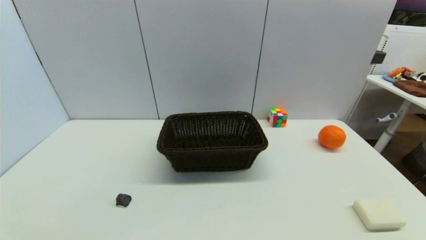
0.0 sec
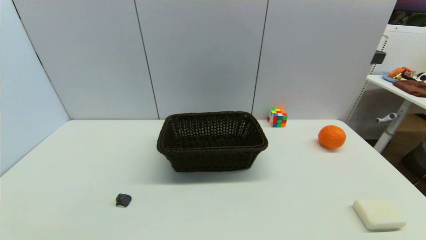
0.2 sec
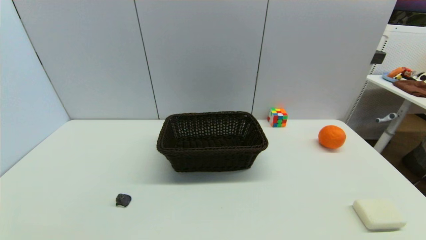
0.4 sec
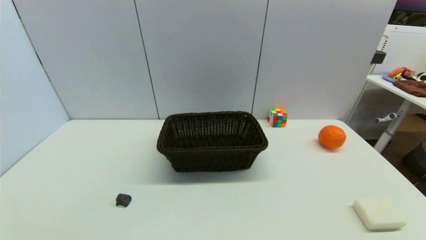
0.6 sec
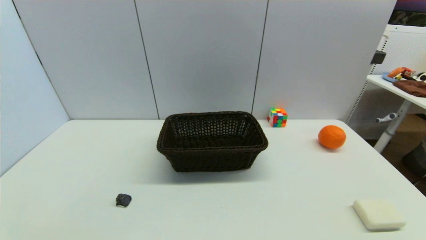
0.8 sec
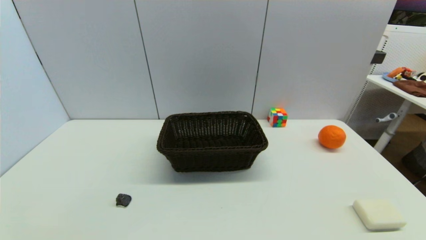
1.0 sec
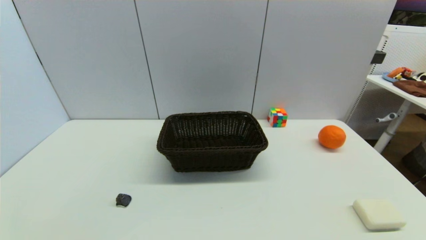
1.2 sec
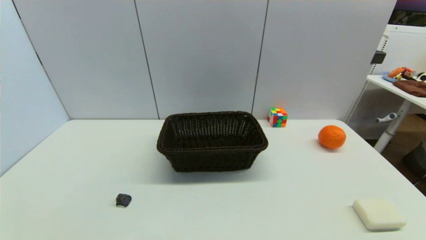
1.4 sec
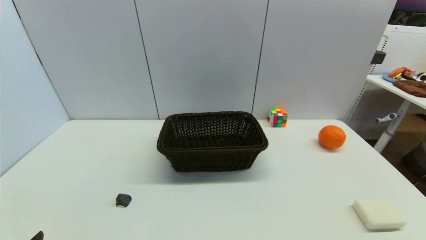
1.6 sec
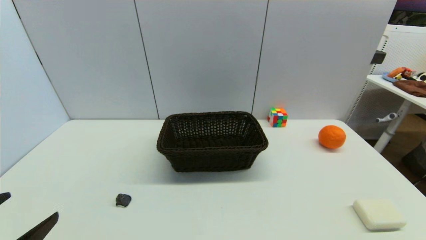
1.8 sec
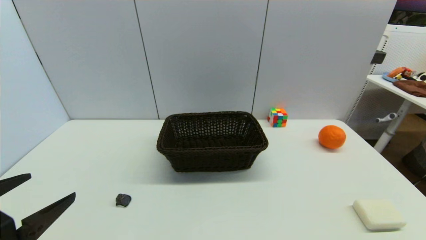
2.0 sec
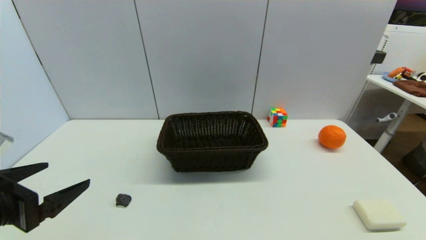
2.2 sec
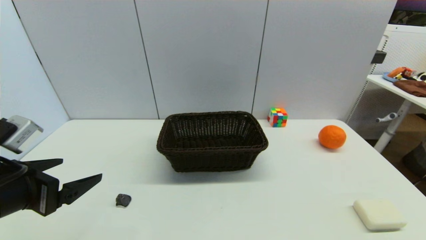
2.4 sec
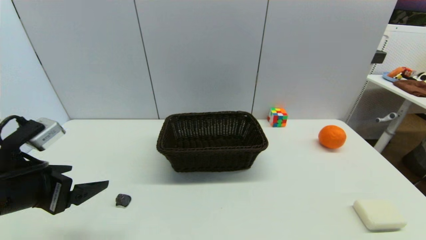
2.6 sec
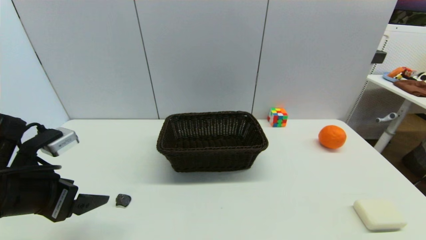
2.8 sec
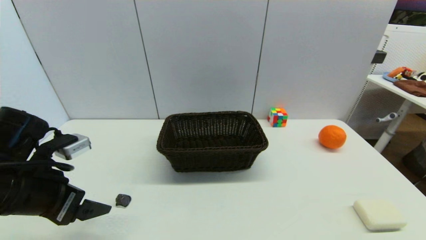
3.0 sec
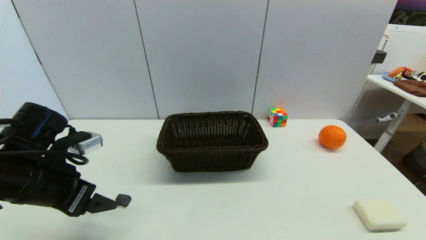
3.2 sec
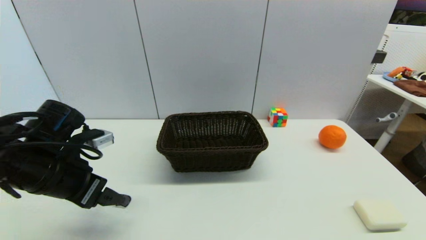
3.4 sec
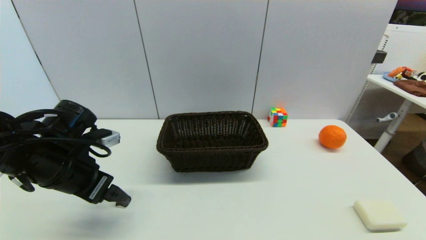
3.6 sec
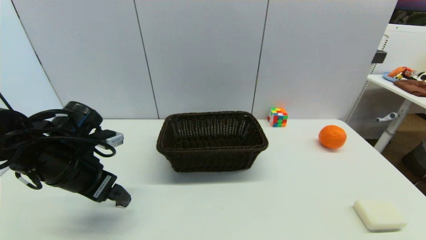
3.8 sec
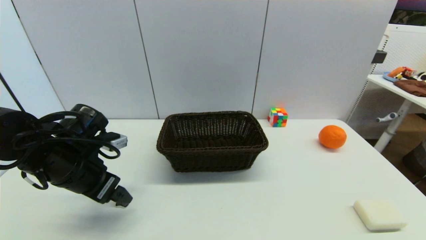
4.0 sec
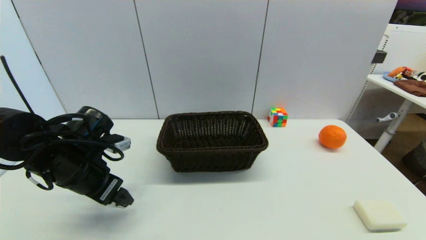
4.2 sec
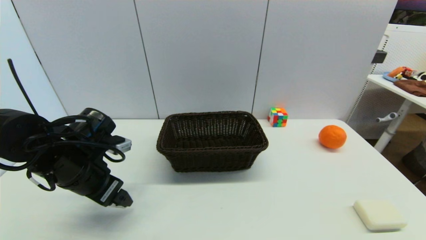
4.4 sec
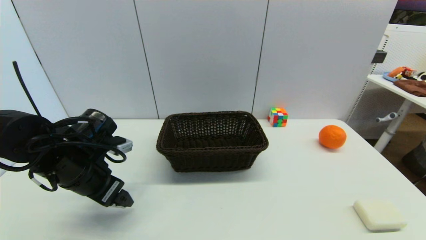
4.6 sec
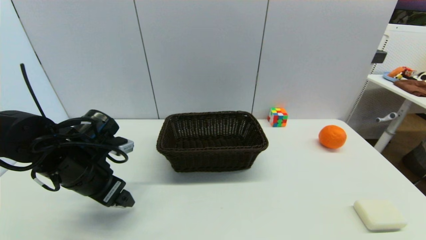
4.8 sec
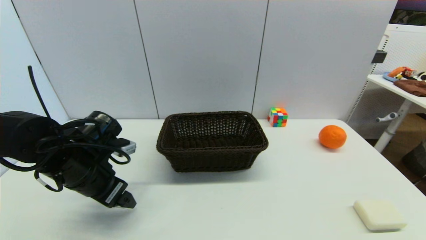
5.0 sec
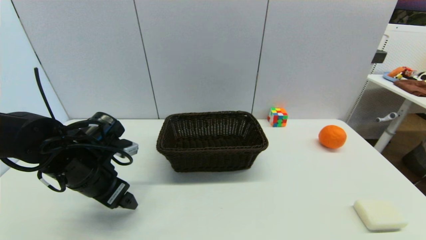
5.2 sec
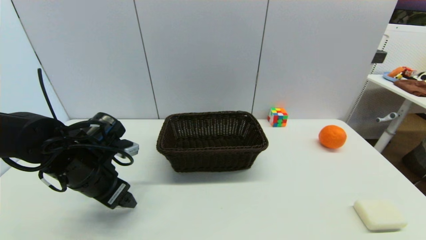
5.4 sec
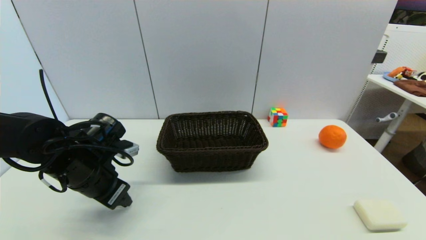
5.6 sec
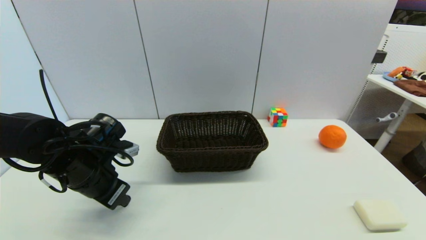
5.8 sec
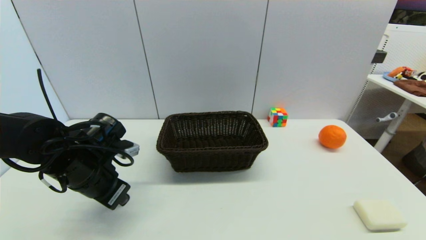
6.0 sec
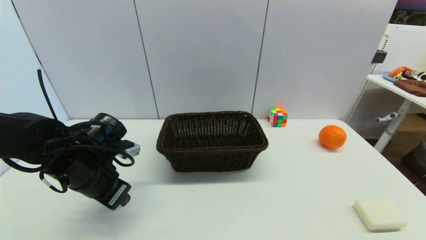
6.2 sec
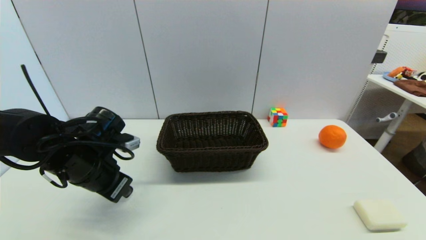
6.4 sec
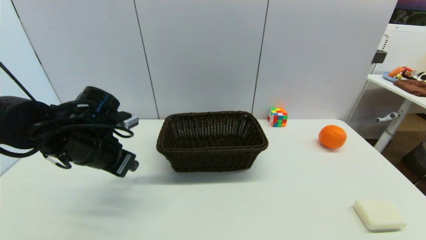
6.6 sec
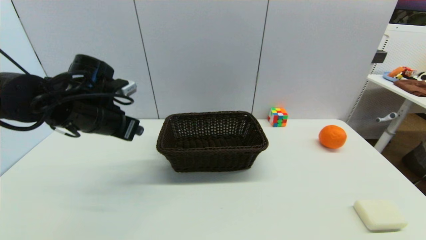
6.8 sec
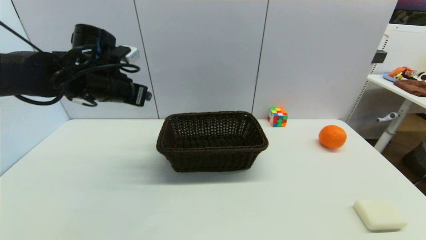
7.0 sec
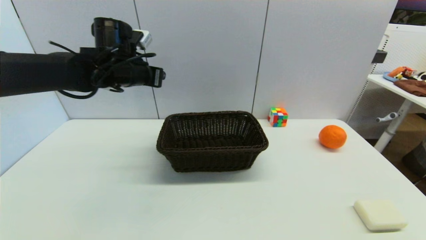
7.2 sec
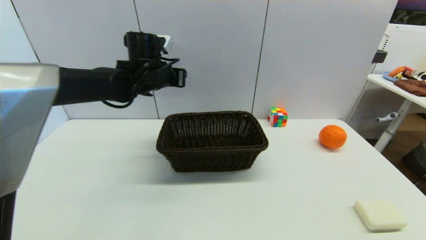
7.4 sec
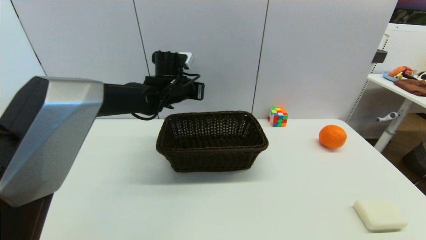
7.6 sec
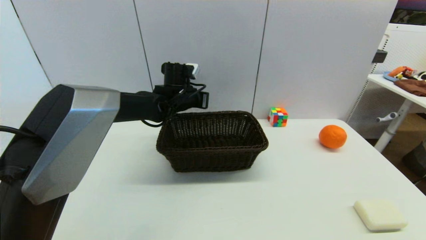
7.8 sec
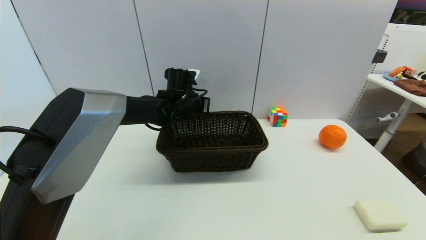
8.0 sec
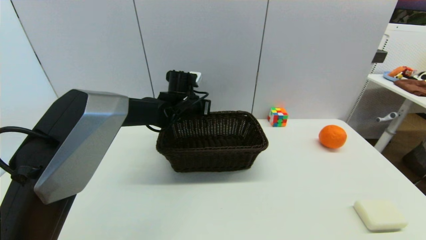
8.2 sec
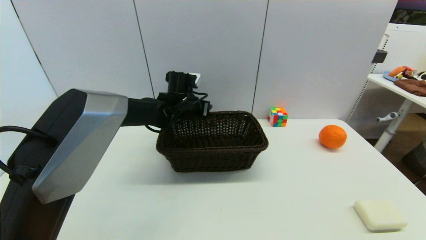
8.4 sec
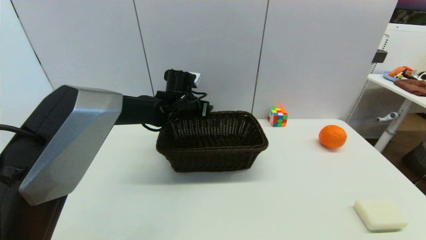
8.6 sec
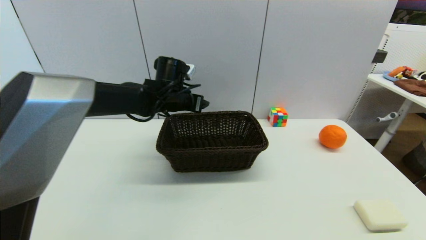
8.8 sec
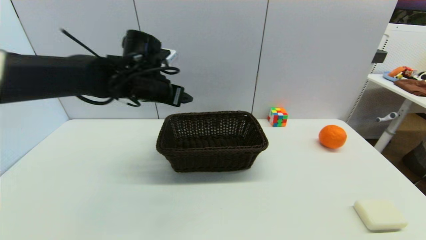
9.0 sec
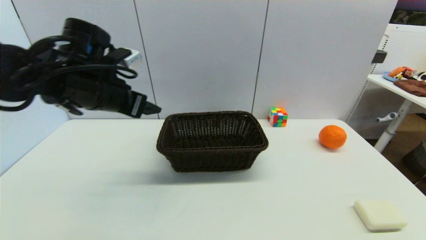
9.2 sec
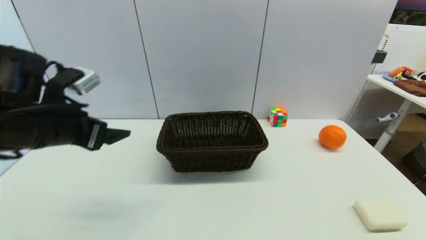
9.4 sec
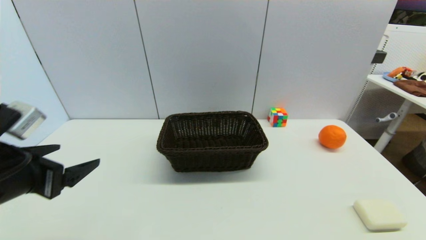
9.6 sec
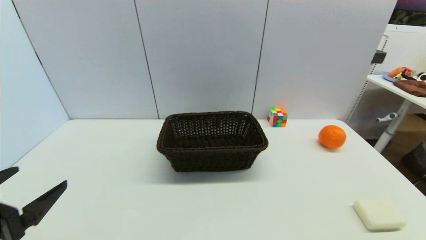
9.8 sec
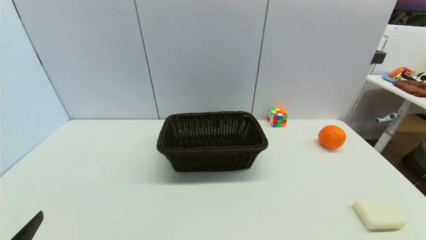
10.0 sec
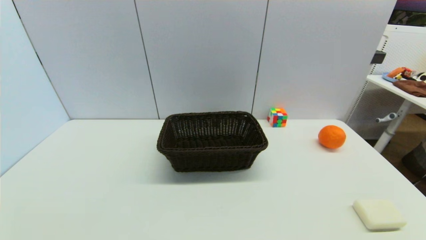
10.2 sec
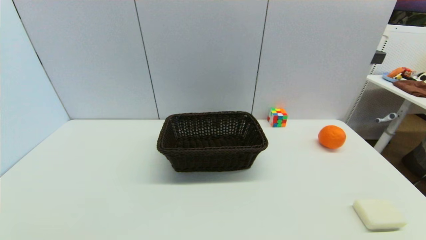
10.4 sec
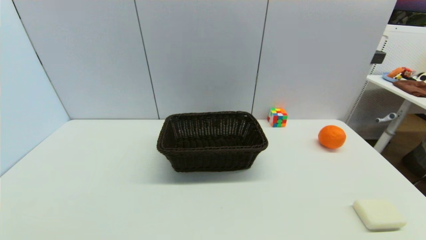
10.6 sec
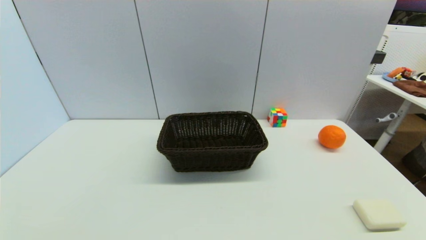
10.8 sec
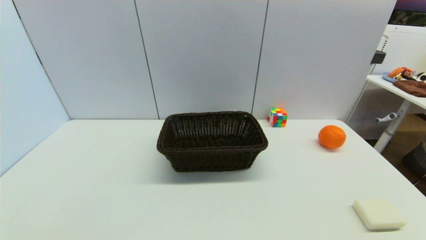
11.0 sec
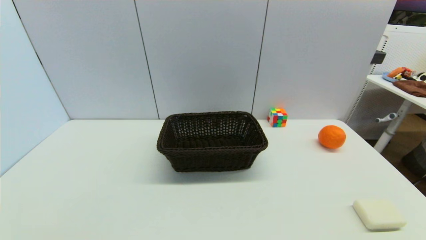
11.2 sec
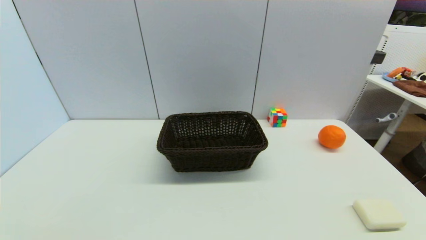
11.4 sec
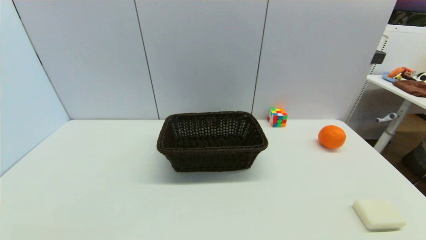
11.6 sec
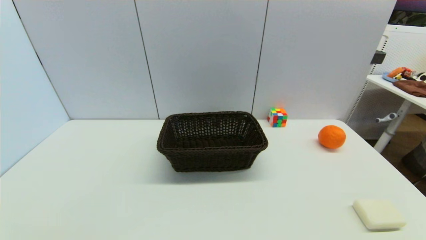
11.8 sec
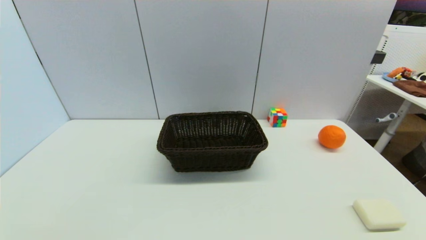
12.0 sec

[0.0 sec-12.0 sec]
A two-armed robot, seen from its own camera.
Step, 1.6 sec to 6.0 sec: Grasp the coffee capsule with left gripper.
Step, 6.4 sec to 8.4 sec: Place the coffee capsule on the table with left gripper.
1.6 sec to 3.0 sec: The left gripper goes about 15 cm forward.
3.0 sec to 4.4 sec: The left gripper is displaced forward by roughly 5 cm.
4.4 sec to 6.0 sec: The left gripper closes its fingers.
6.0 sec to 7.6 sec: The left gripper travels forward and to the right by roughly 25 cm.
7.6 sec to 9.0 sec: The left gripper travels backward and to the left by some 10 cm, and opens up.
9.0 sec to 10.4 sec: The left gripper goes roughly 40 cm backward, downward and to the left.

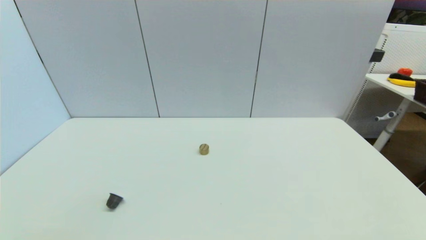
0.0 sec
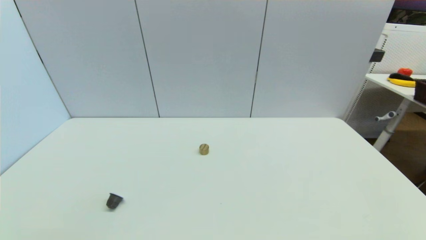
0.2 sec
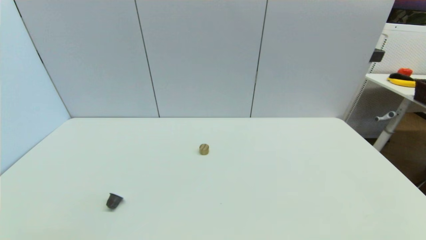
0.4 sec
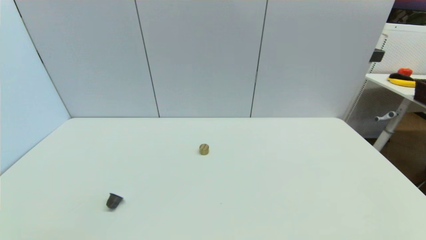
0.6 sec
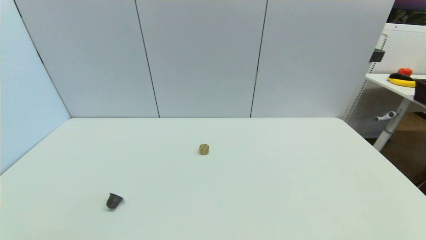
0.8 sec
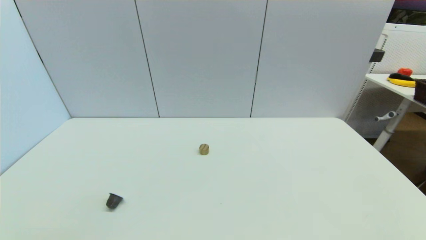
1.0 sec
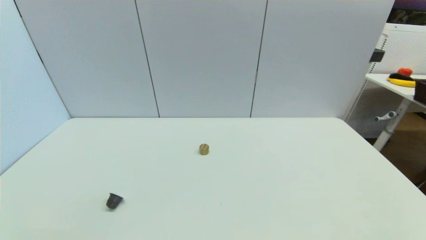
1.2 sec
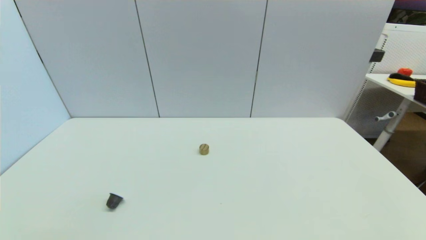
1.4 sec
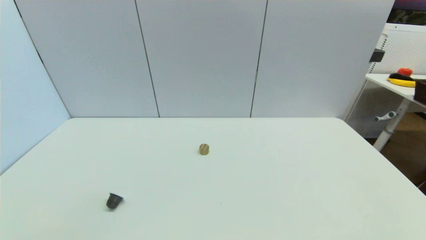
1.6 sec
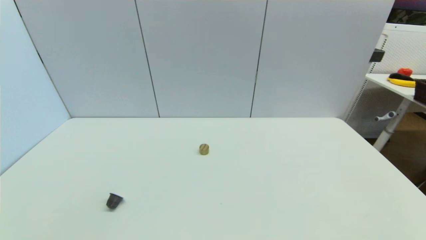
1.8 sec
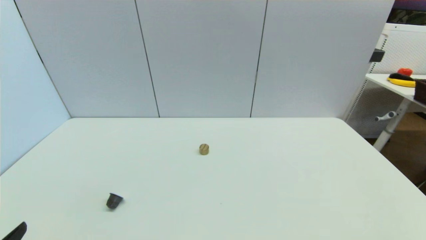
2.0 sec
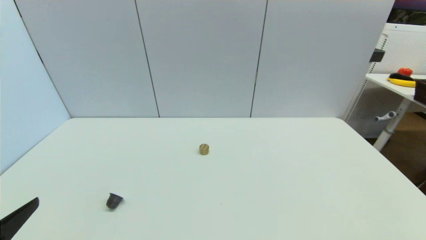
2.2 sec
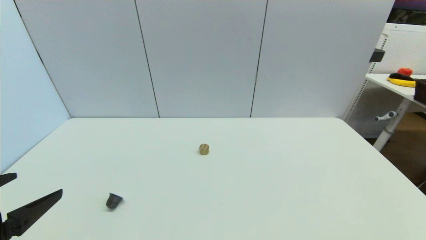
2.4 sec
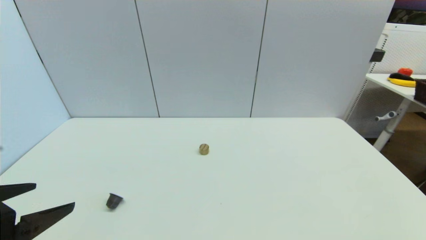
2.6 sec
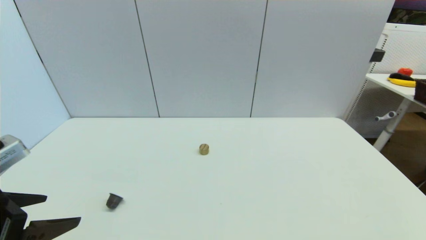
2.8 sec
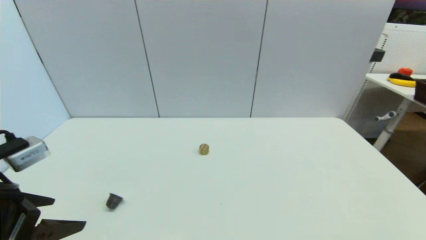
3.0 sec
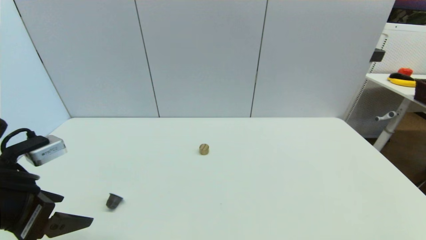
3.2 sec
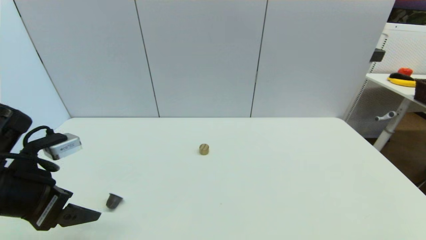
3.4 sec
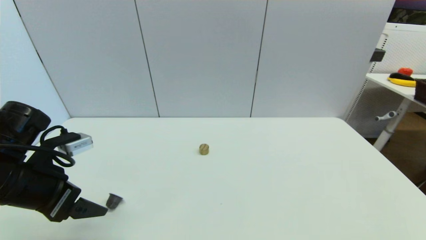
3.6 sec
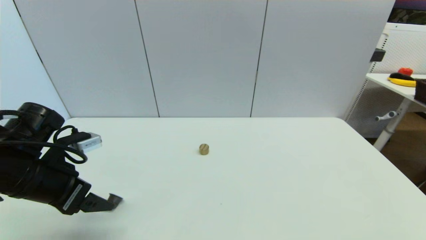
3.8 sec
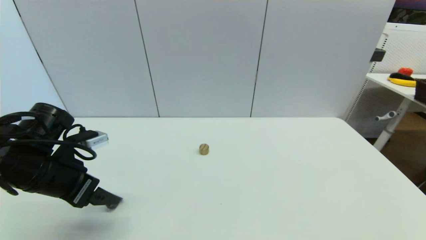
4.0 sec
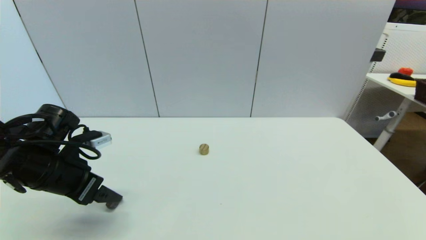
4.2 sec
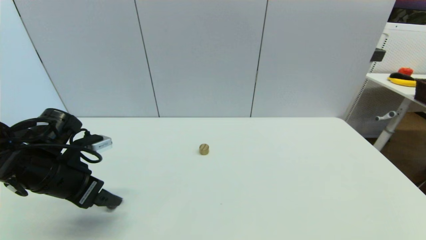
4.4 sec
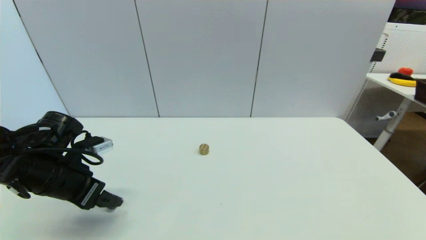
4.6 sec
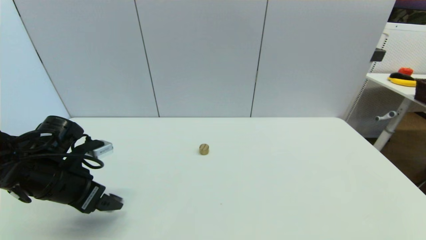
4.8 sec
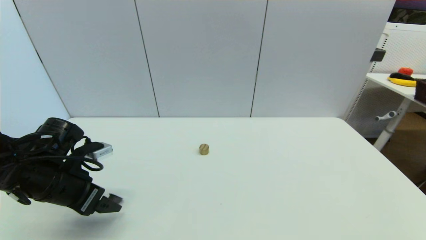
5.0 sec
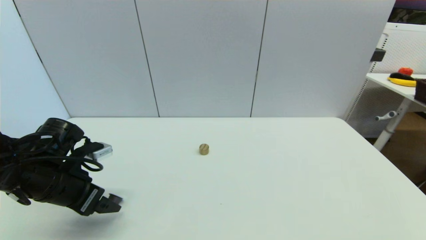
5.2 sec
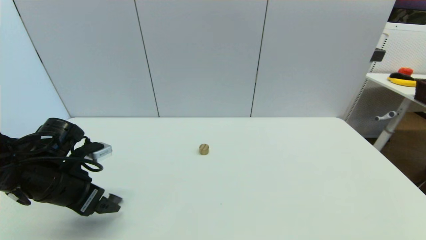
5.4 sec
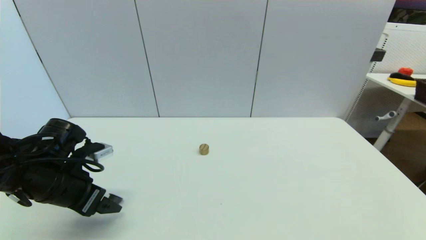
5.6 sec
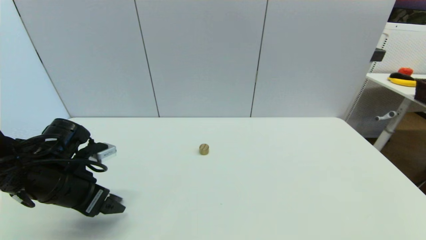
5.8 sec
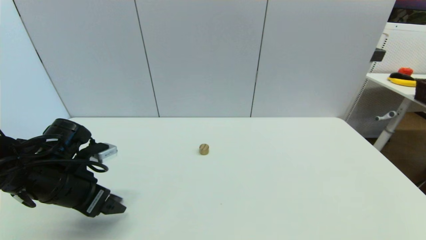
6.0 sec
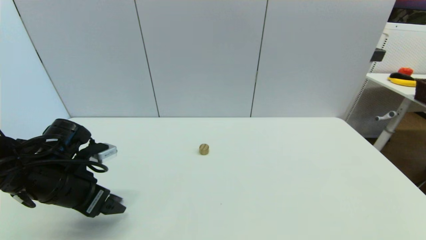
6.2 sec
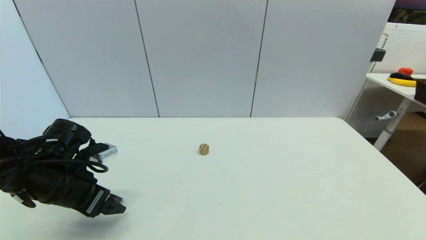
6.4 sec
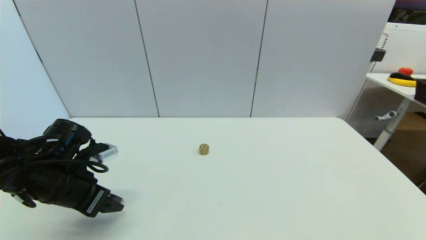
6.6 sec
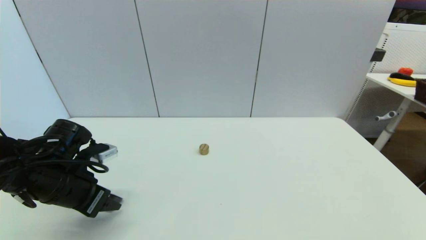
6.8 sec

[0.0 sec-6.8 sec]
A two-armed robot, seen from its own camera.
0.0 sec to 1.4 sec: The two grippers keep their place.
1.4 sec to 2.8 sec: The left gripper goes some 20 cm upward and forward.
2.8 sec to 4.0 sec: The left gripper heads forward, covering about 10 cm.
4.0 sec to 5.4 sec: There are only small adjustments of the grippers.
5.4 sec to 6.8 sec: The left gripper closes up.
